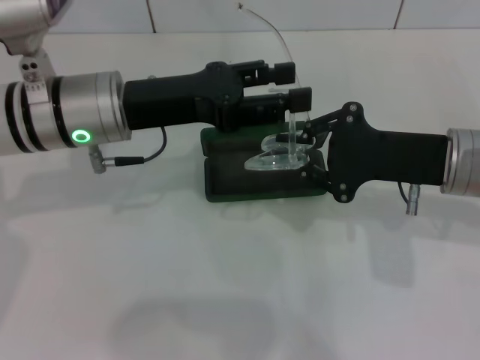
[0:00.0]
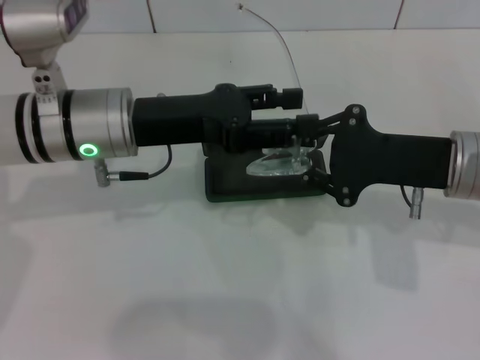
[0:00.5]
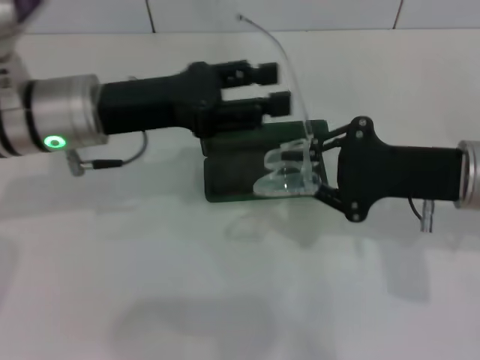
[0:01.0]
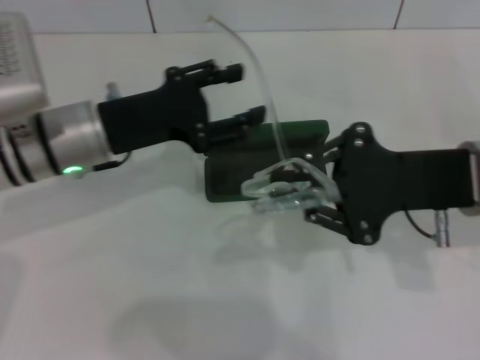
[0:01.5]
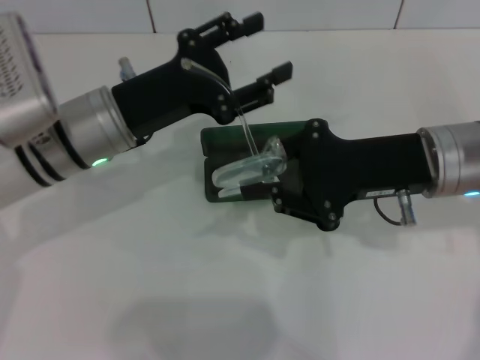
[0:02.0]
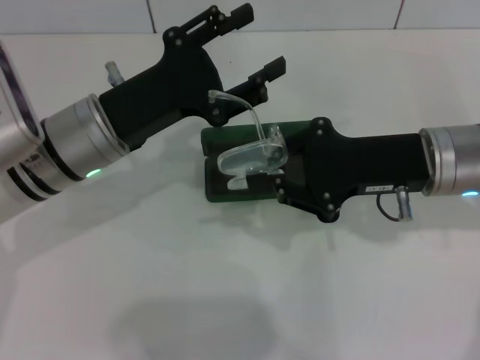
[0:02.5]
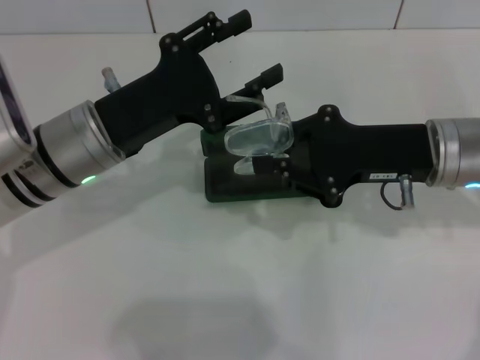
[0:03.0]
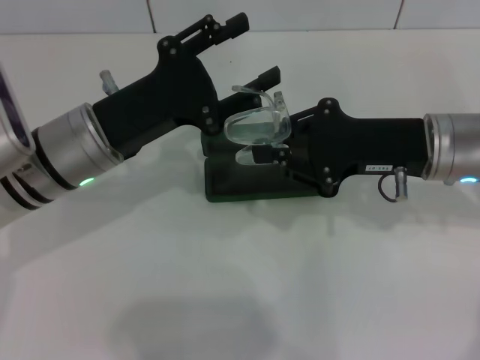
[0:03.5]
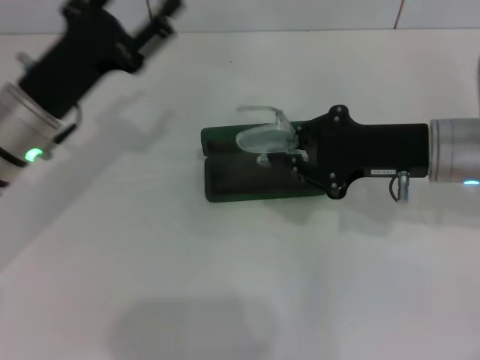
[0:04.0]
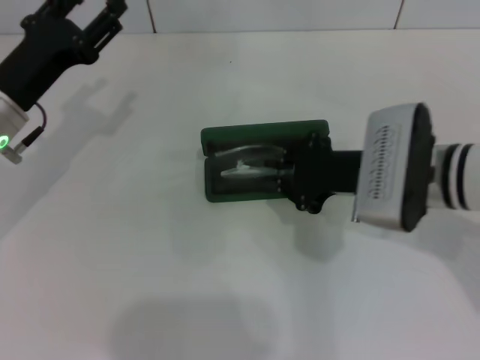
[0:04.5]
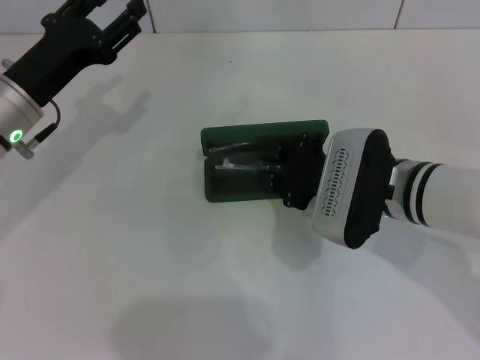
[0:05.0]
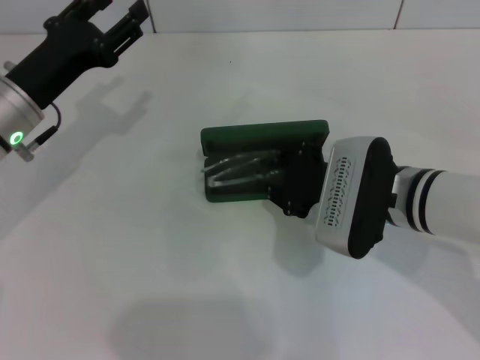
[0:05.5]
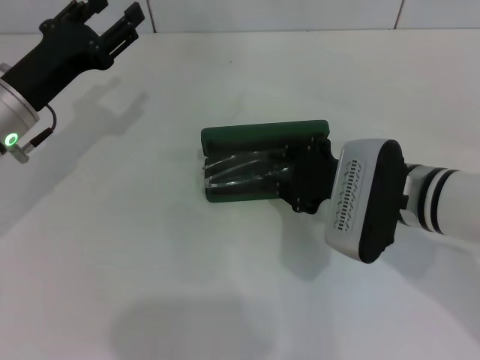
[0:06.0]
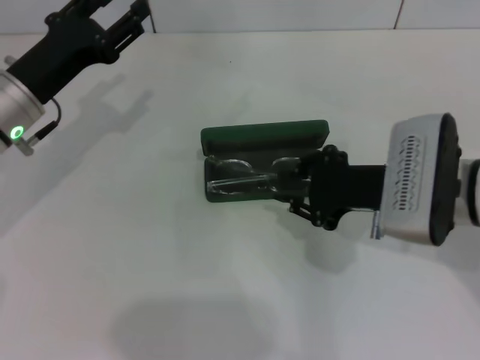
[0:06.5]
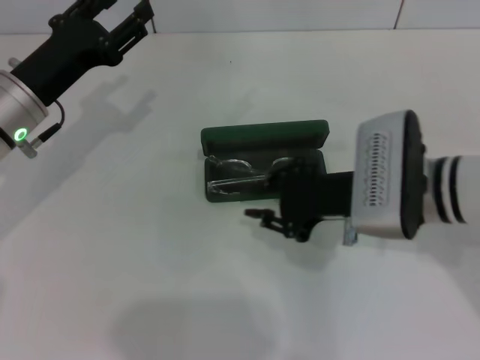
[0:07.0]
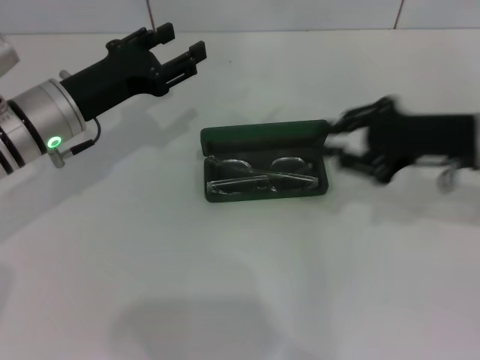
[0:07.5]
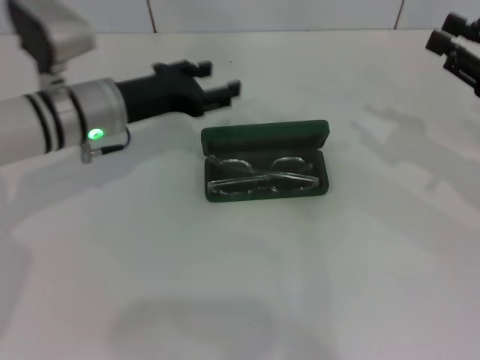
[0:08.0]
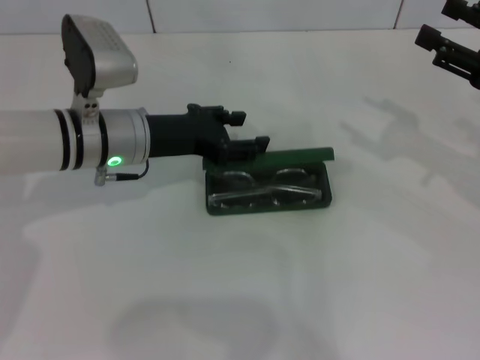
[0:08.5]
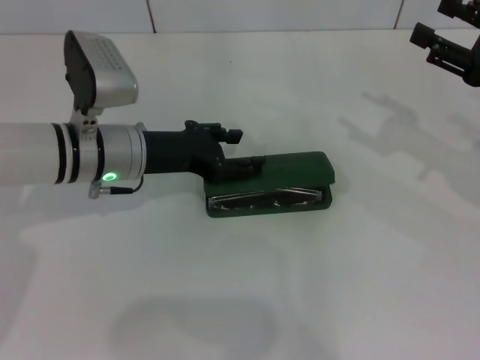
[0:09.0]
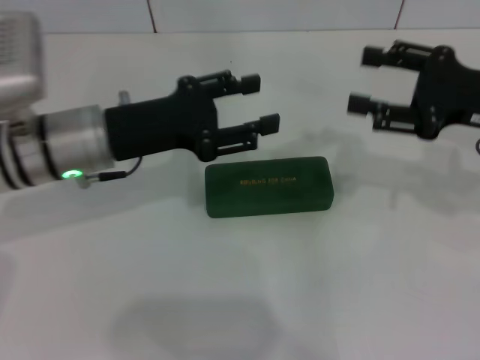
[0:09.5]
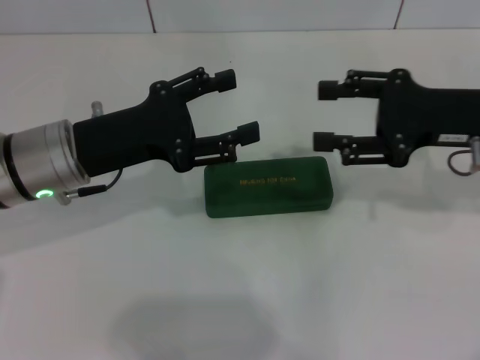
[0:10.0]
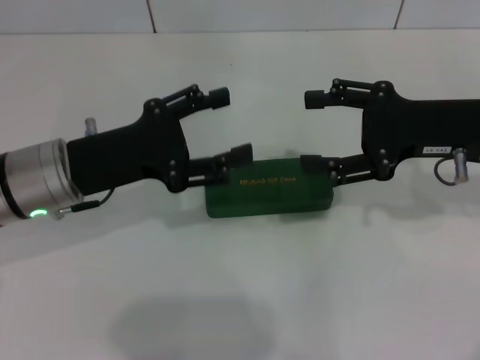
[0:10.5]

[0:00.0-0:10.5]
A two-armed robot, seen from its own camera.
Step, 0:00.0 to 0:03.5: Fold the frame with your left hand.
Step, 0:04.0 to 0:06.0: Put the glasses into the case with your right hand.
Step, 0:06.5 to 0:09.0: Close the glasses case with your left hand.
0:02.0 to 0:04.0: The left gripper goes roughly 5 cm to the left.
0:06.5 to 0:08.5: The left gripper moves to the right, about 10 cm; the right gripper shifts some 15 cm to the right, and opens.
0:08.5 to 0:10.5: The right gripper travels to the left by about 10 cm, while the left gripper travels backward by roughly 5 cm.
